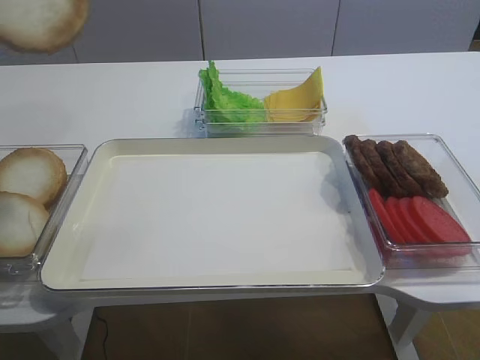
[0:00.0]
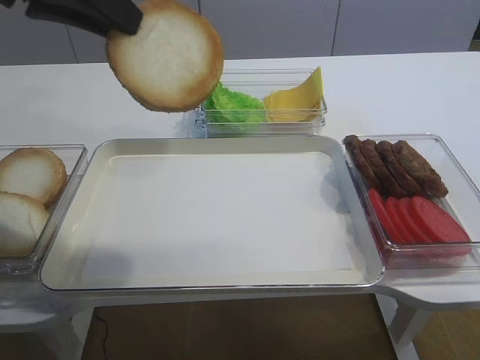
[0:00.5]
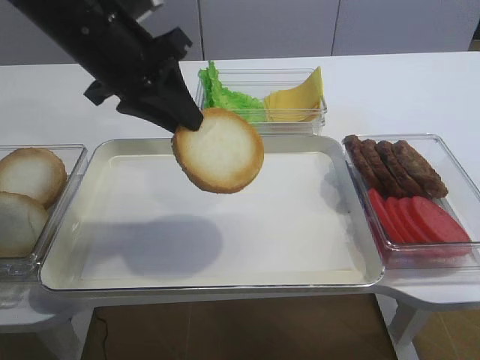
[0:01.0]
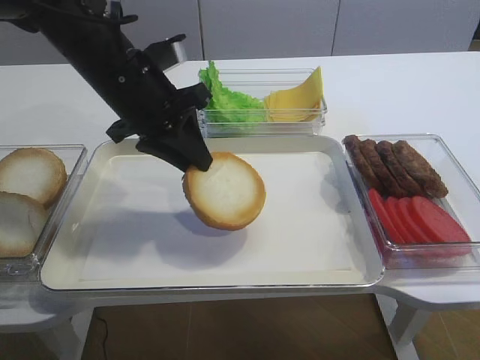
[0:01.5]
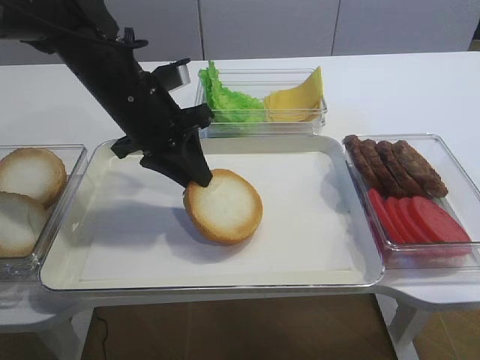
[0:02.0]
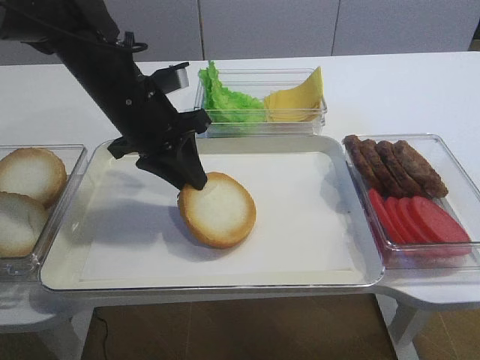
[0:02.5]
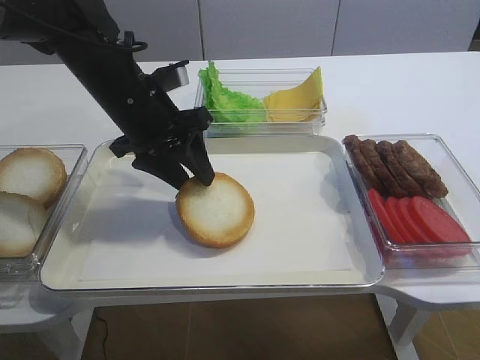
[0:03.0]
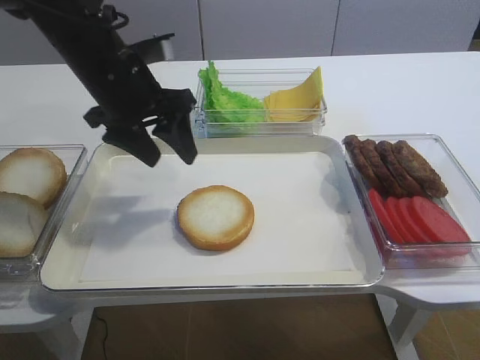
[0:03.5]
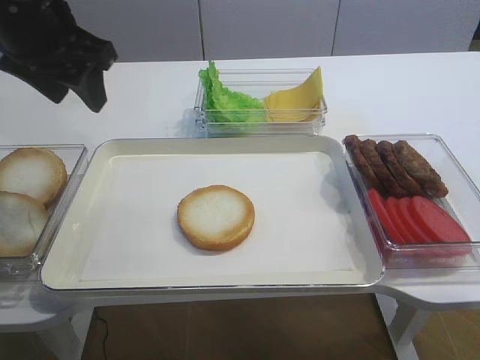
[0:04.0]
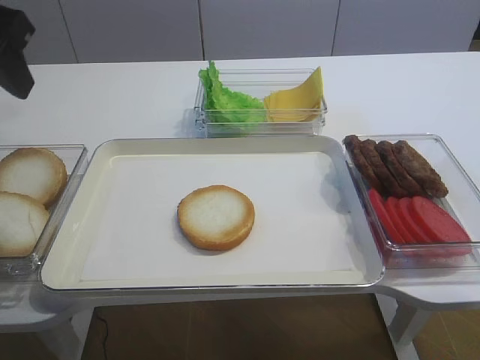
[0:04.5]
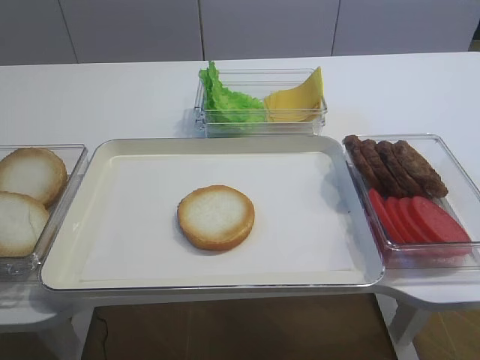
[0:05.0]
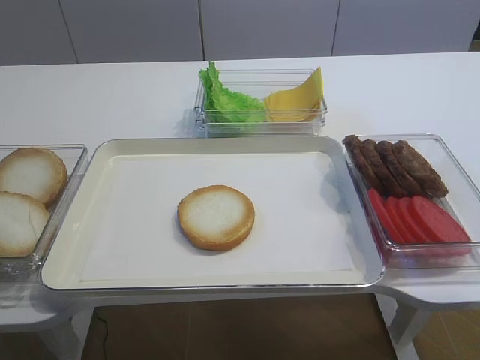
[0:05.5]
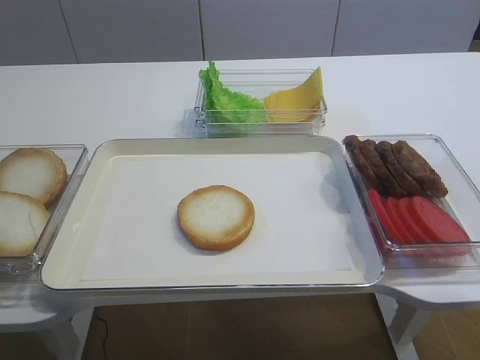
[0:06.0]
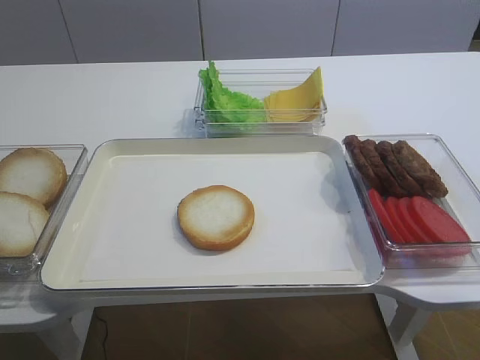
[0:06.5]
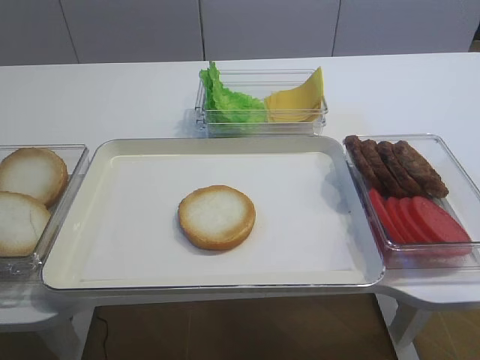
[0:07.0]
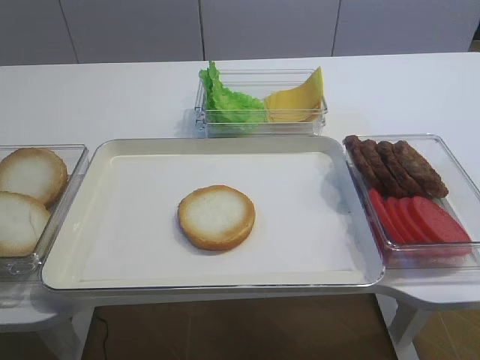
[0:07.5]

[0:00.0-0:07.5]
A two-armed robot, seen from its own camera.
Step, 0:00.0 to 0:03.0: Place the bread slice on the tray with the left gripper.
0:00.0 to 0:02.0: The left gripper goes roughly 25 cm downward, to the right and forward.
0:02.0 to 0:04.0: The left gripper moves upward and to the left, about 15 cm, and opens.
0:04.0 to 0:05.5: The left gripper heads backward, covering about 30 cm.

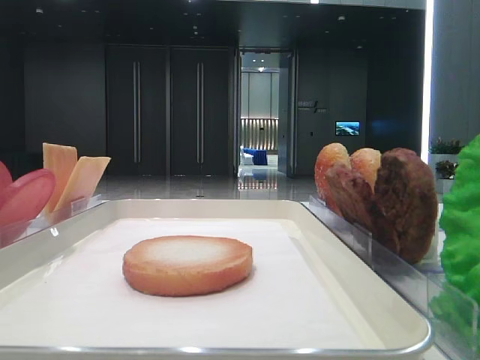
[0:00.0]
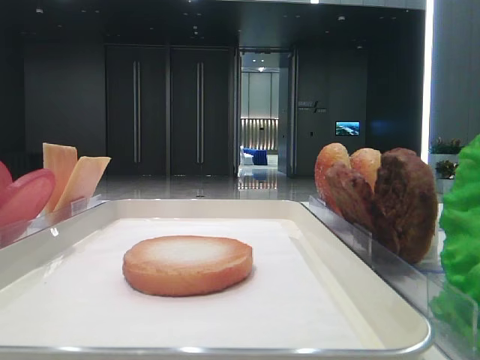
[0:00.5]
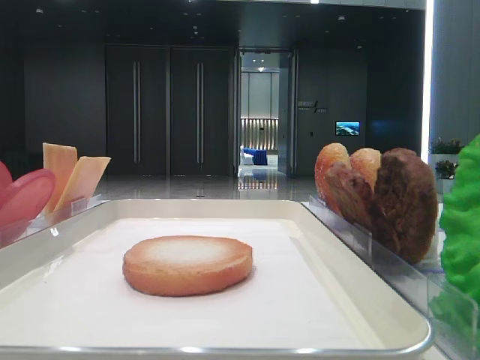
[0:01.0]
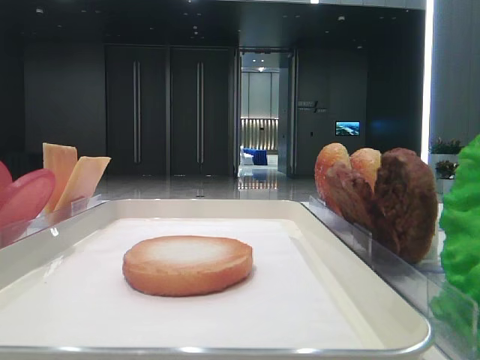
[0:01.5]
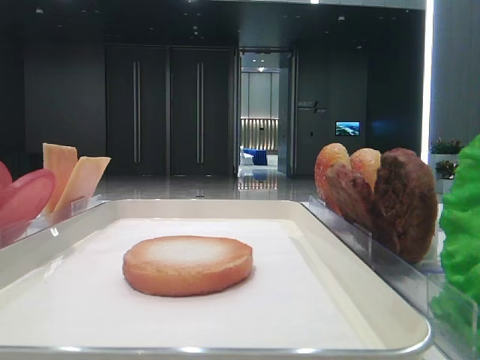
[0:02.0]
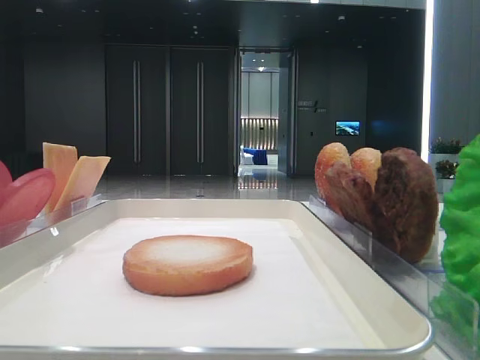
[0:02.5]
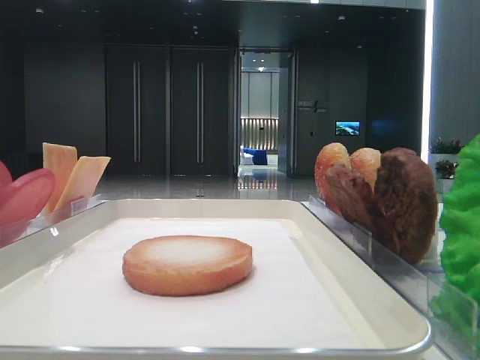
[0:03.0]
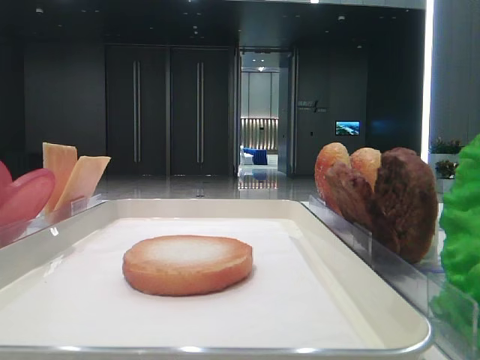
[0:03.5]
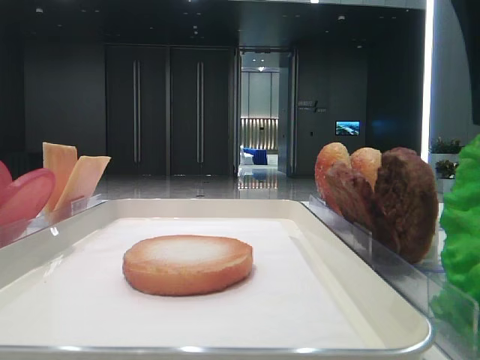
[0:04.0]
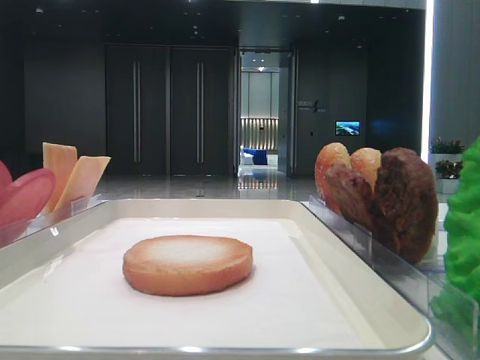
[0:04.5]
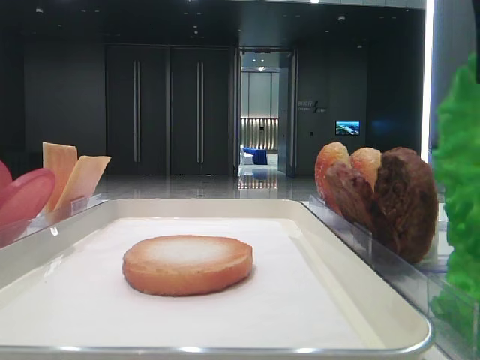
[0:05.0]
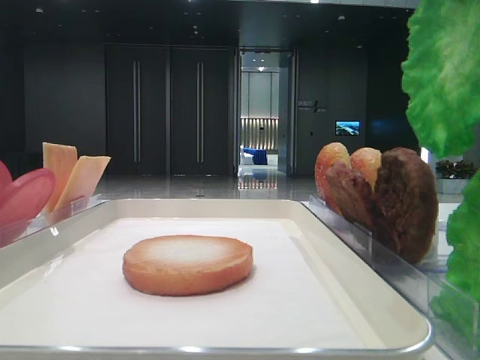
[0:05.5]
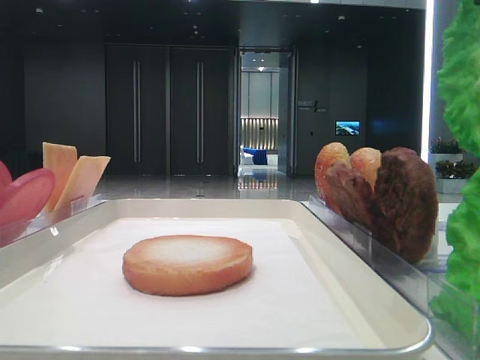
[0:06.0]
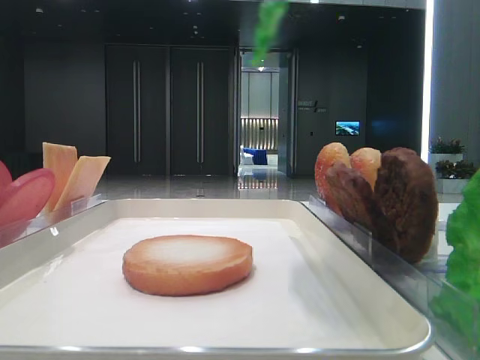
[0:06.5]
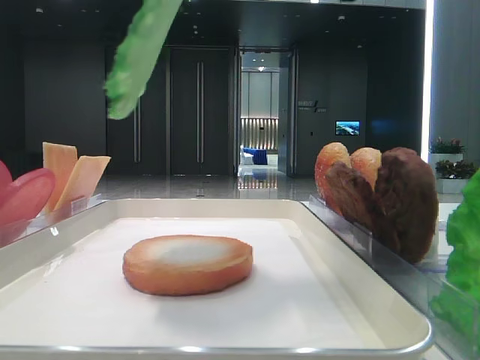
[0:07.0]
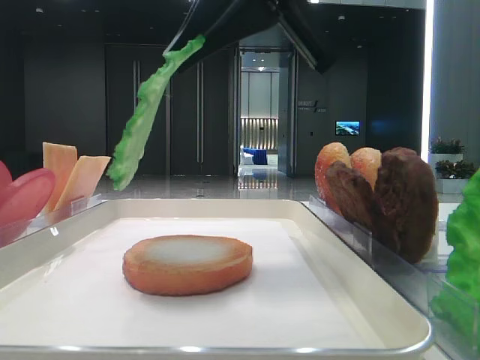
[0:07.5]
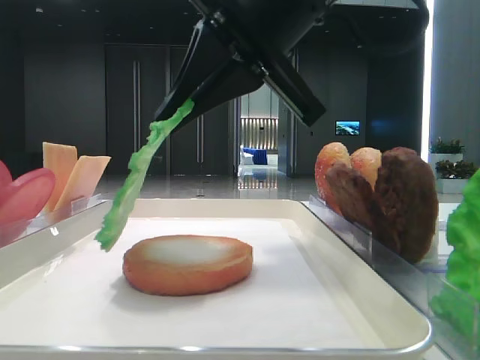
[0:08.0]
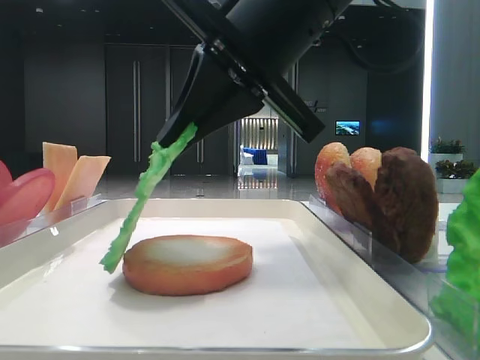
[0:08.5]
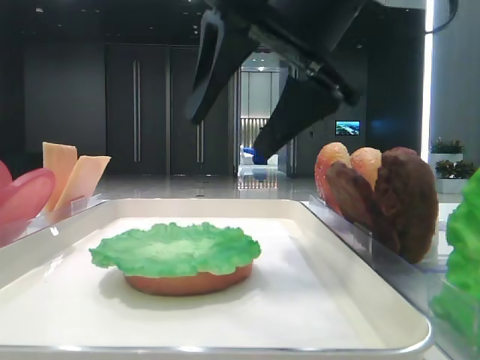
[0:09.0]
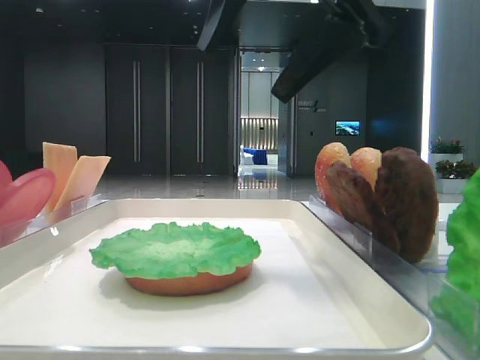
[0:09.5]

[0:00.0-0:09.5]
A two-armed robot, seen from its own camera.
Step, 0:00.0 to 0:04.5: Grab the lettuce leaf with the right hand.
Step, 0:05.0 to 0:08.5: Place the lettuce leaf on the bottom bread with the right hand.
0:02.0 to 0:04.0: The right gripper heads to the left and forward, covering approximately 20 cm.
0:04.0 to 0:05.5: The right gripper goes some 10 cm upward, and closes.
0:05.5 to 0:07.5: The right gripper travels to the left, forward and downward by approximately 15 cm.
0:07.5 to 0:09.5: The right gripper opens.

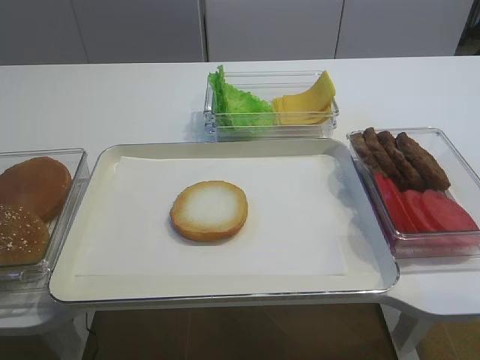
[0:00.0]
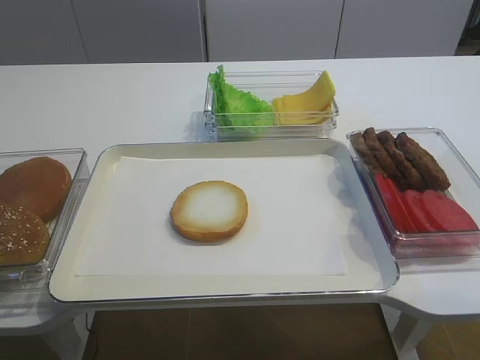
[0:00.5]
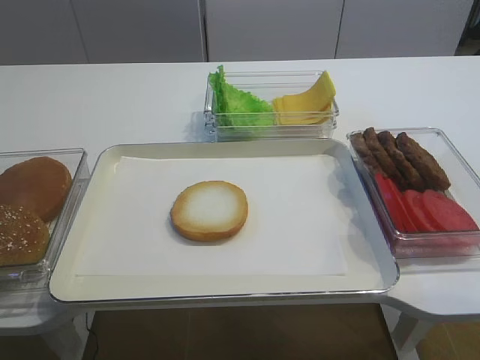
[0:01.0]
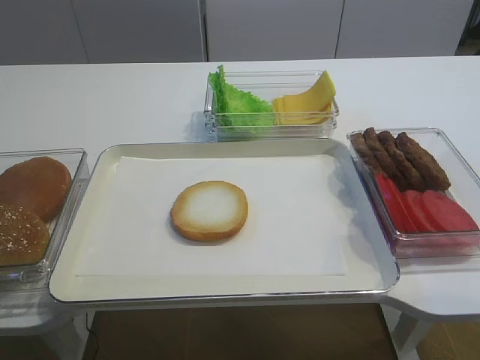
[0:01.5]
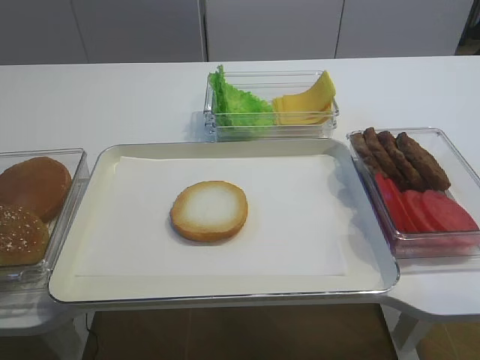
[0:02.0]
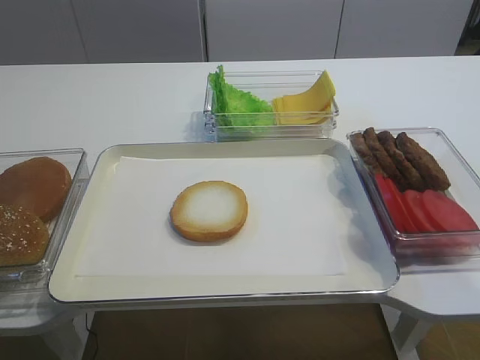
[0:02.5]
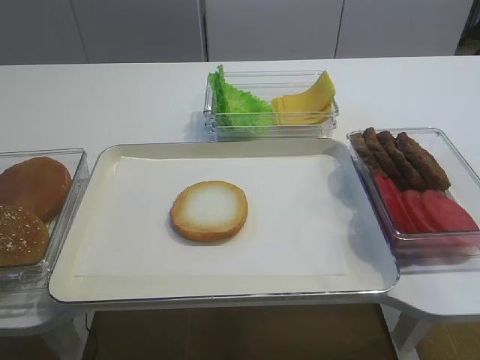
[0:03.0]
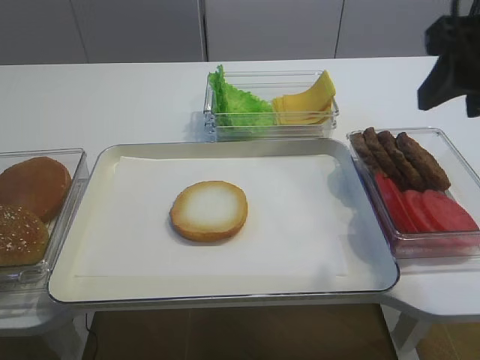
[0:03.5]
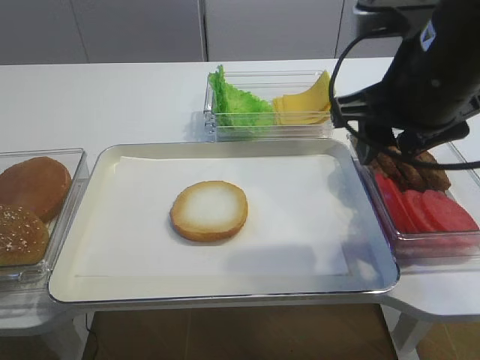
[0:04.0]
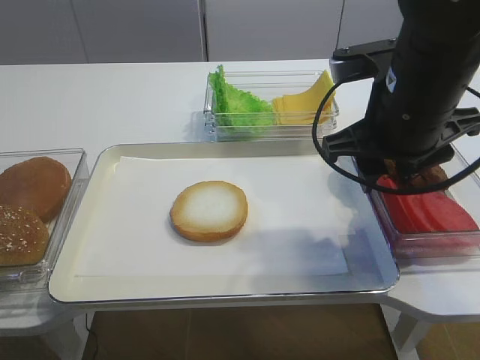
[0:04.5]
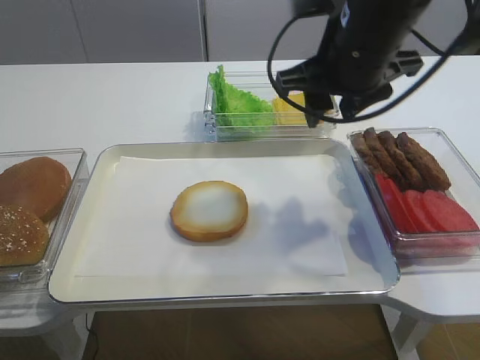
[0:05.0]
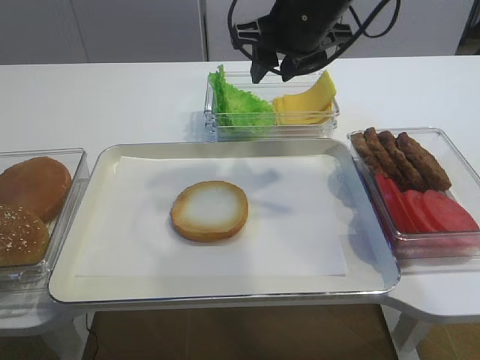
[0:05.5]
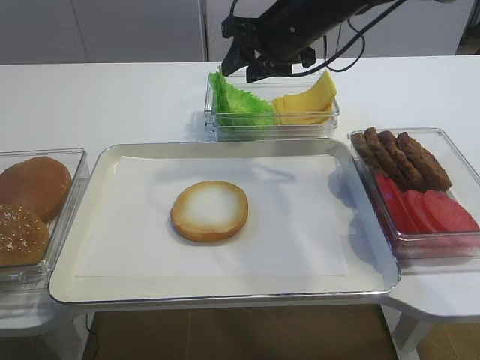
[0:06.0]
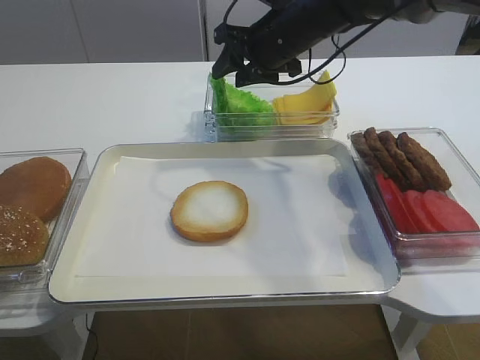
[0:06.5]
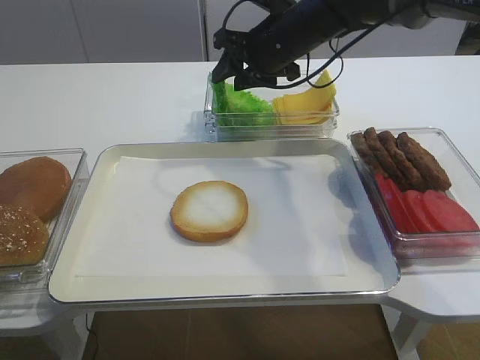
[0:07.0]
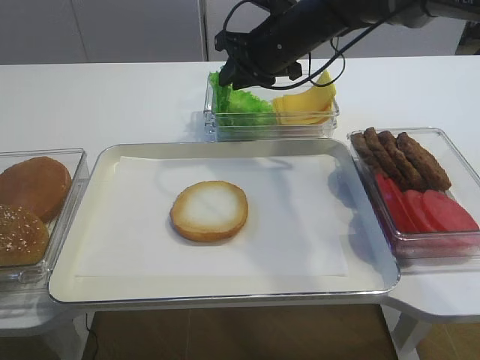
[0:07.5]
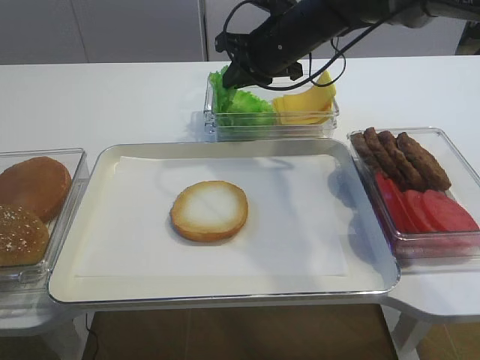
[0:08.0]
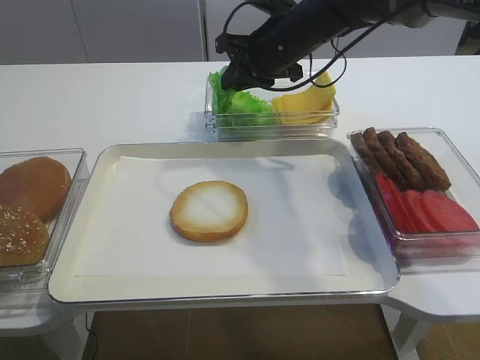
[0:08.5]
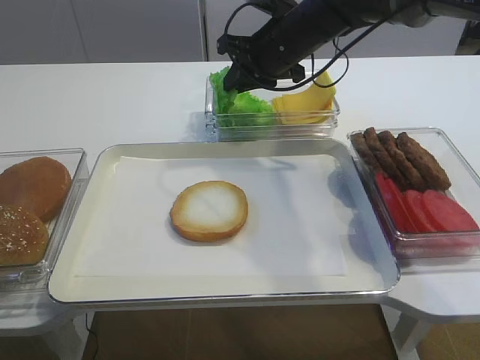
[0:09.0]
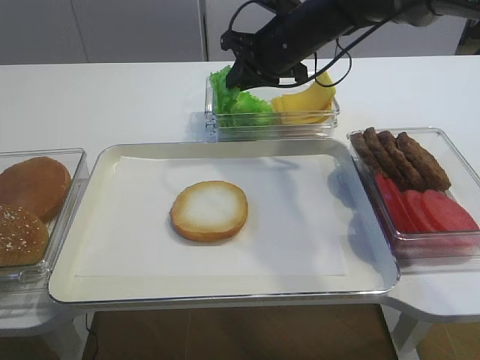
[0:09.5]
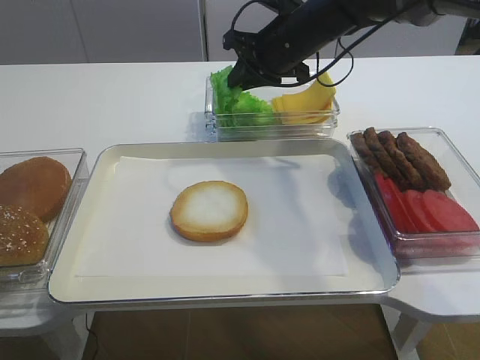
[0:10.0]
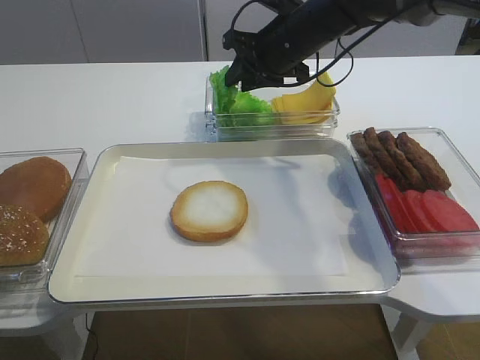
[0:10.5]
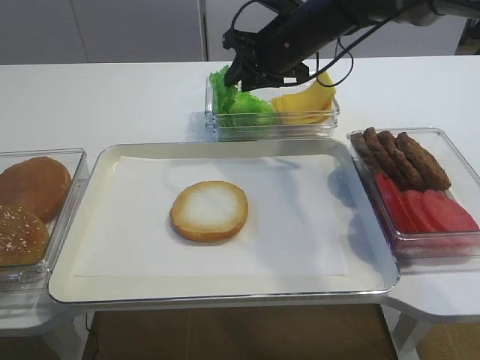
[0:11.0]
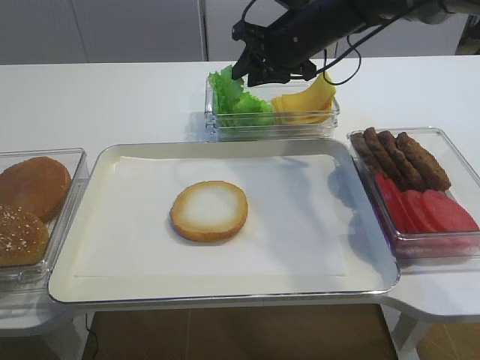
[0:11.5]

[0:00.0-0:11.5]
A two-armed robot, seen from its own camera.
0:02.0 to 0:04.0: The right gripper travels forward and to the left by some 30 cm.
0:04.0 to 0:06.0: The right gripper goes about 20 cm forward and to the left.
0:06.0 to 0:07.5: The right gripper closes up.
0:07.5 to 0:09.5: The two grippers keep their place.
0:09.5 to 0:11.5: The grippers move only a little.
